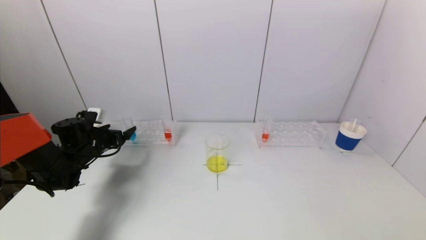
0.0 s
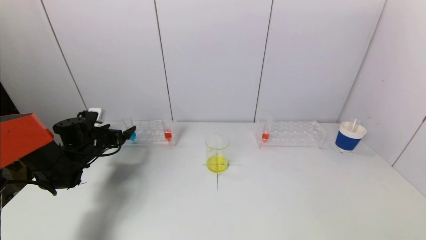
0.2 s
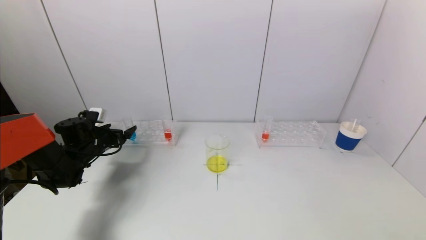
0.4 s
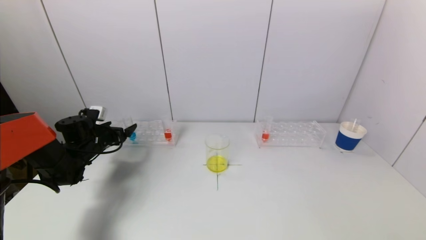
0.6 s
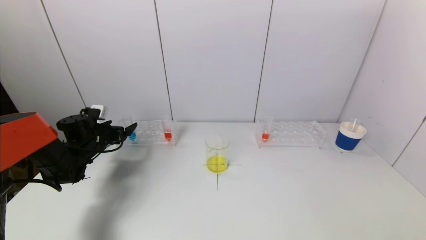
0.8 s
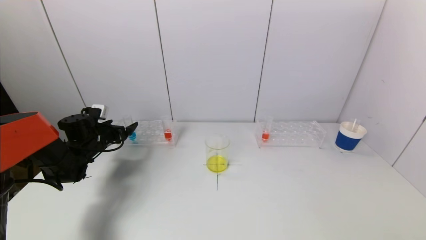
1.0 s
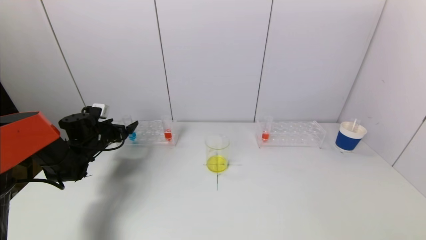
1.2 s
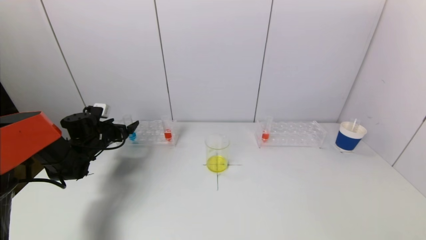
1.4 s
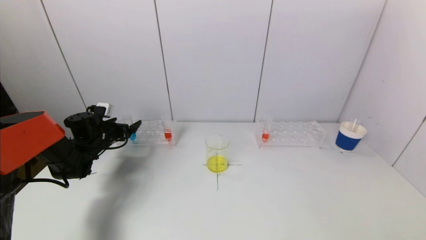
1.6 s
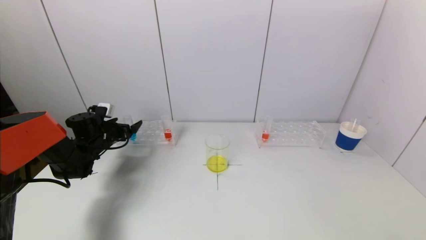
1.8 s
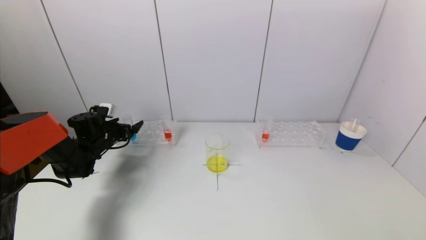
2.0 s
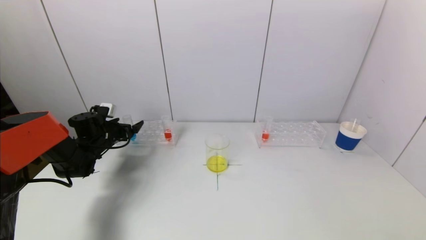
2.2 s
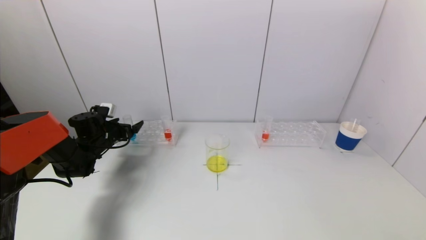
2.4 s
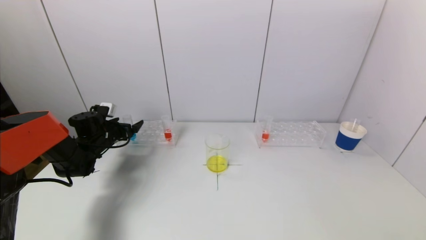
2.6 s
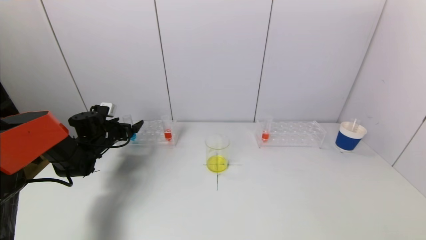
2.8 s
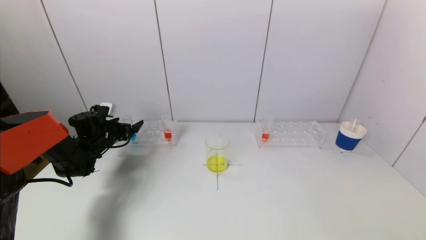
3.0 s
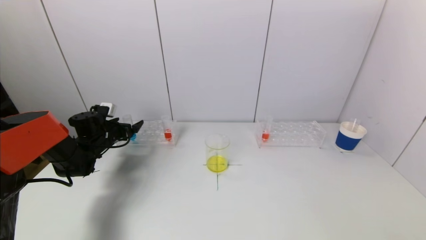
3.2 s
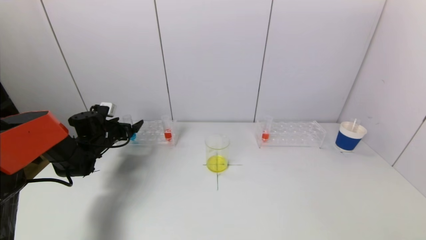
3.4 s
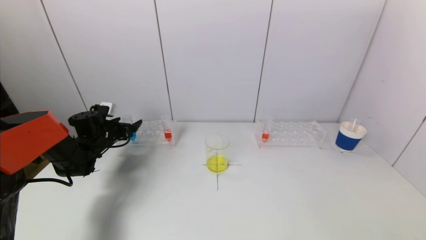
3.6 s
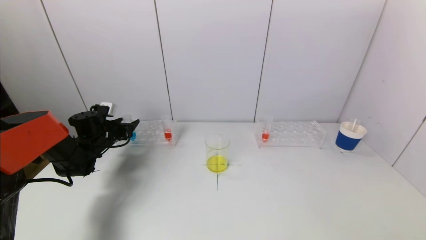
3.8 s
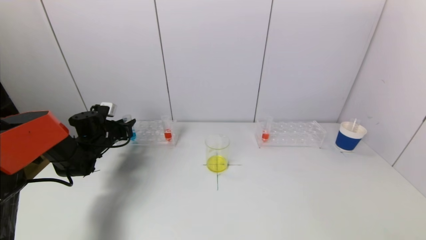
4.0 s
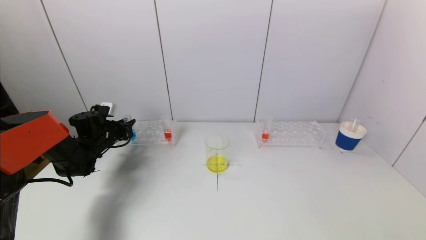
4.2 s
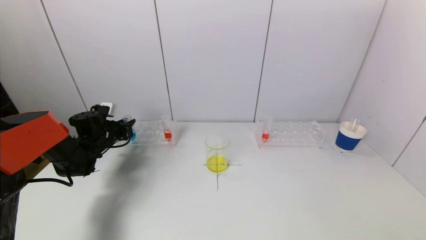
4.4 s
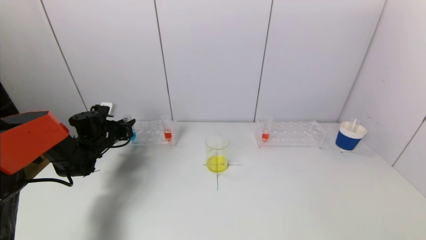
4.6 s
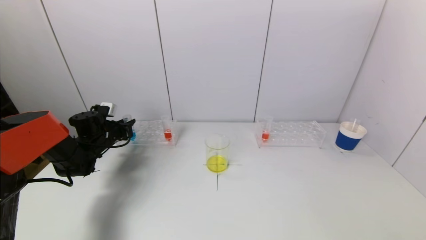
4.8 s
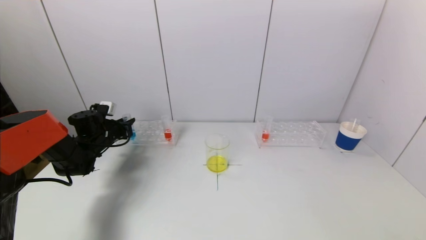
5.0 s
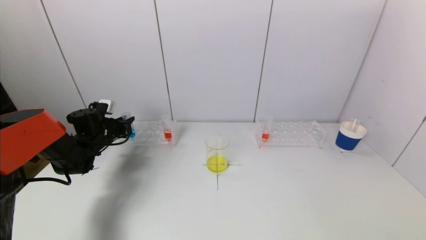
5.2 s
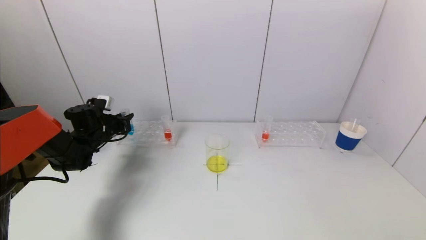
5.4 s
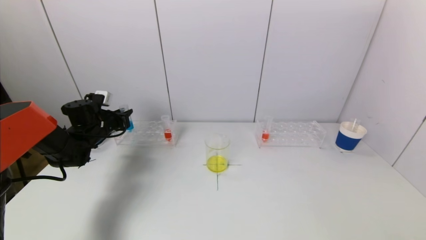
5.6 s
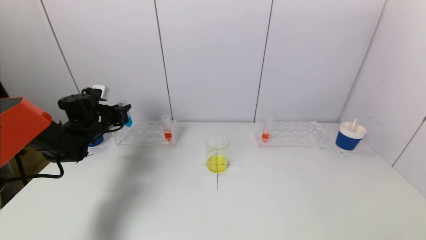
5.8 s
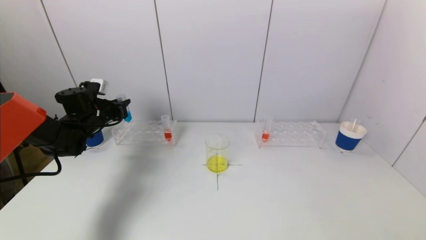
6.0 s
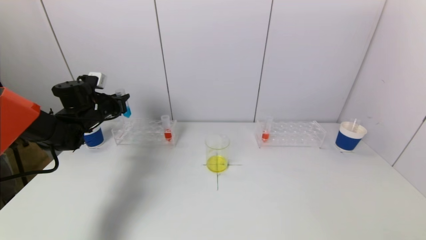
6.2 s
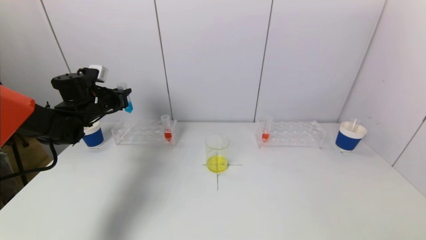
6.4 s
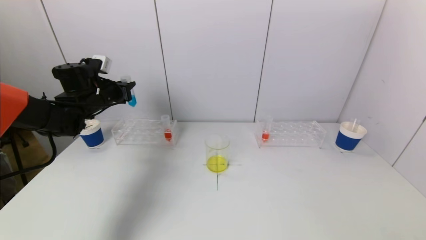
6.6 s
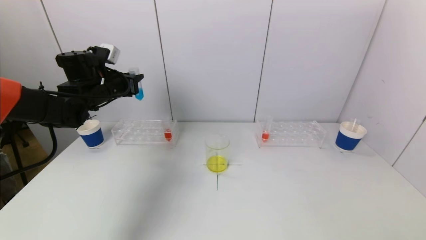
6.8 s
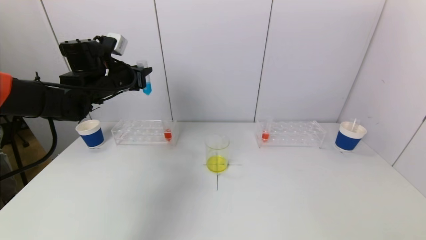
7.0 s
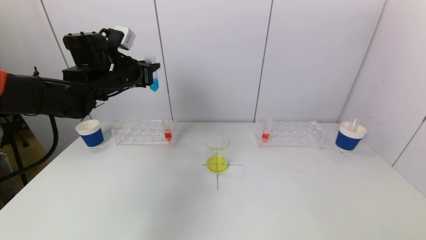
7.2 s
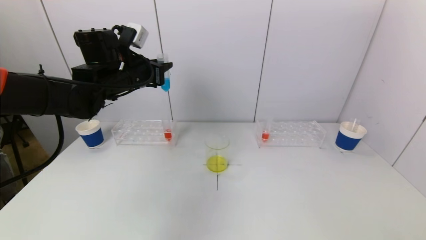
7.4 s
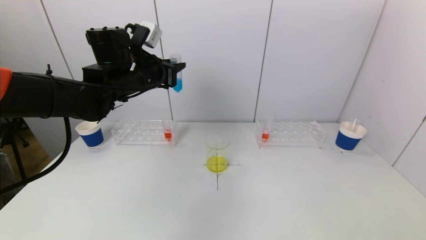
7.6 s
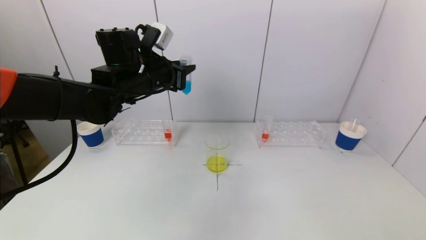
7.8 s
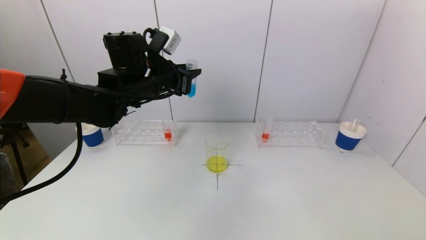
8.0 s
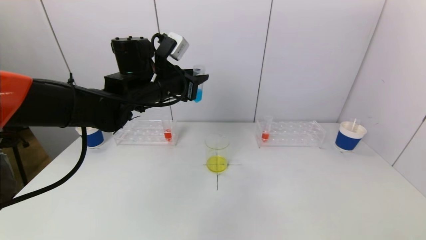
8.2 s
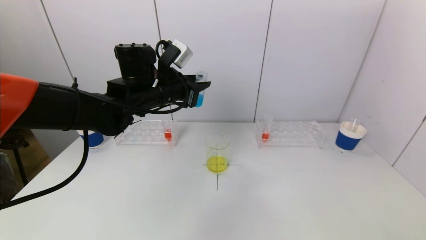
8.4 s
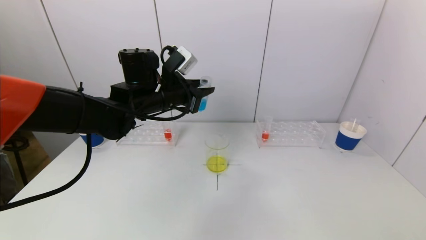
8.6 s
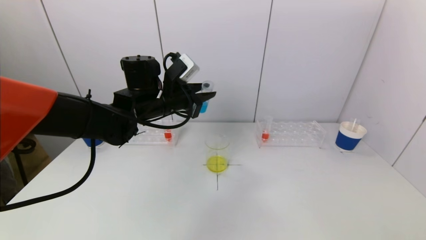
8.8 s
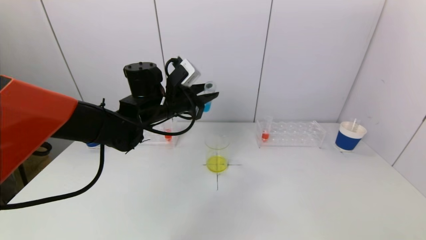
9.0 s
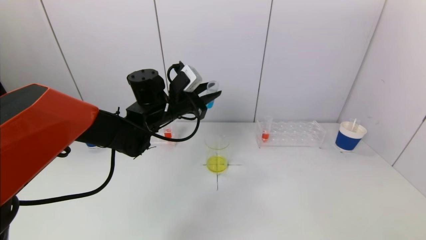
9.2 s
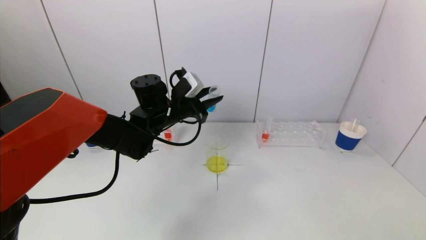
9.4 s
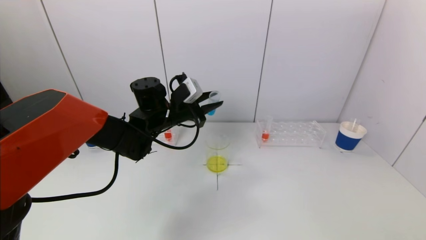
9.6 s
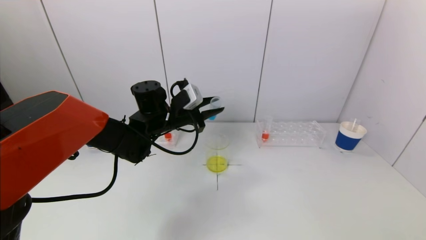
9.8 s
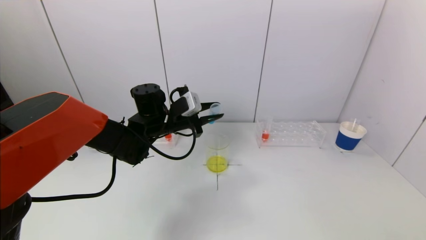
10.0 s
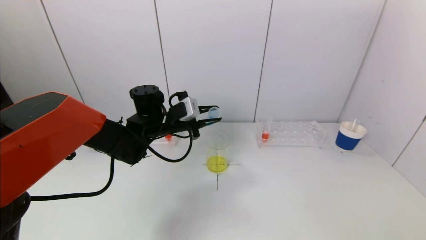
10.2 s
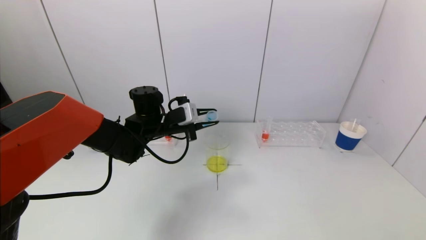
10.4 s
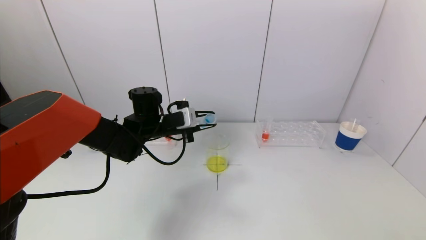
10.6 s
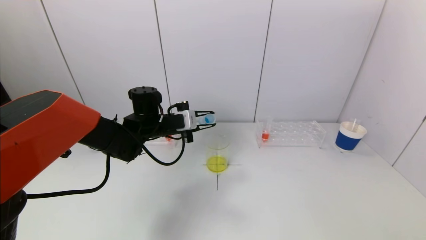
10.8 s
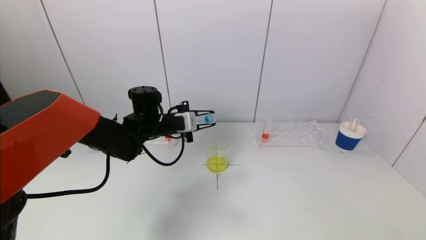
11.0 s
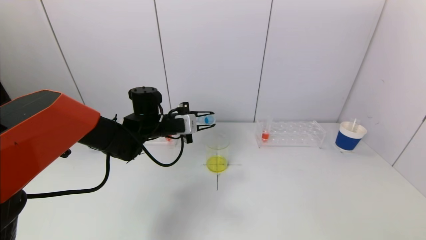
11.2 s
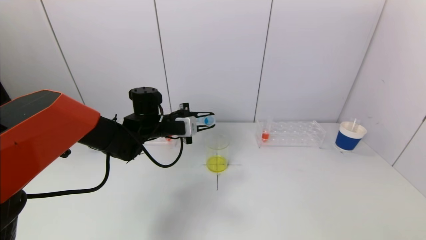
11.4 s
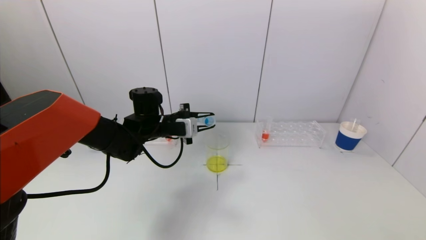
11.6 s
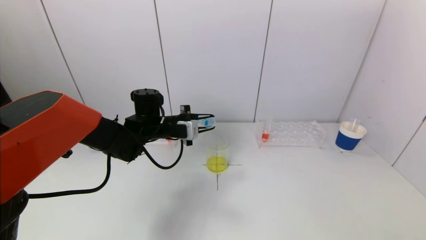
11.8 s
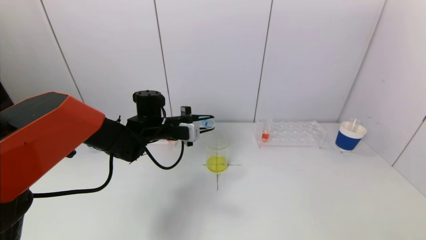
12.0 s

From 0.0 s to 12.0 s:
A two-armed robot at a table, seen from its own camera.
Task of the whole recording: pick up a test tube with pigment on left test tube rack and a test tube with pigment on right test tube rack by grippers and pour them into the beaker.
Step, from 0.0 s to 4.2 s: Grasp the blue reagent with the left gripper.
From 0.0 s to 1.6 s: The grippers stay close to where they were, moving slightly.
From 1.6 s to 3.0 s: Neither gripper changes place.
From 4.4 s to 6.0 s: The left gripper moves upward, about 10 cm.
From 6.0 s to 7.6 s: The left gripper shifts some 20 cm to the right and upward.
From 7.6 s to 9.0 s: The left gripper moves downward and to the right, some 10 cm.
From 9.0 s to 10.4 s: The left gripper heads downward, covering some 5 cm.
From 10.4 s to 12.0 s: There are only small adjustments of the grippers.

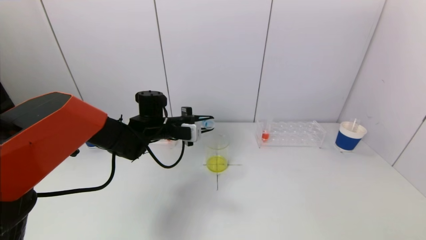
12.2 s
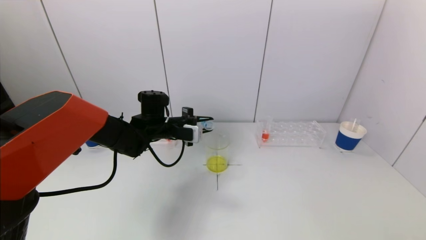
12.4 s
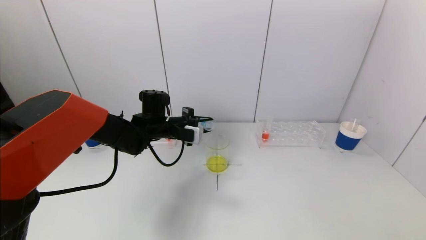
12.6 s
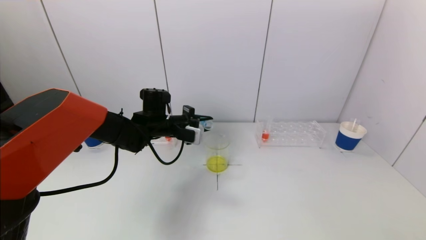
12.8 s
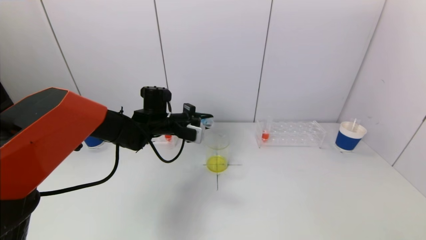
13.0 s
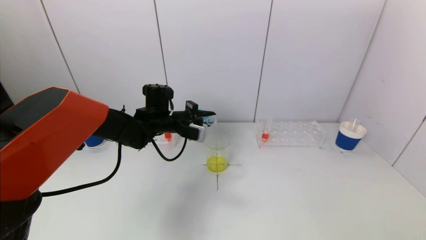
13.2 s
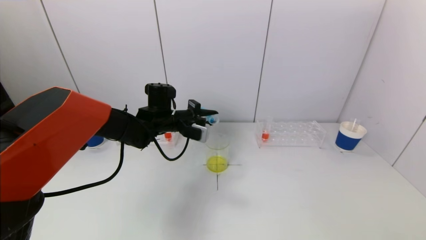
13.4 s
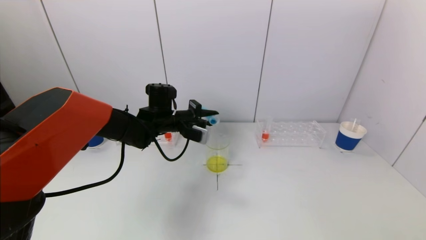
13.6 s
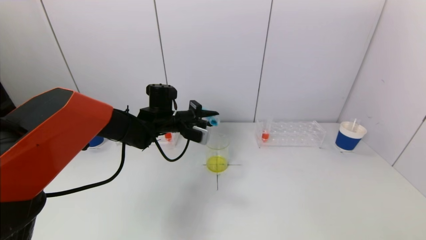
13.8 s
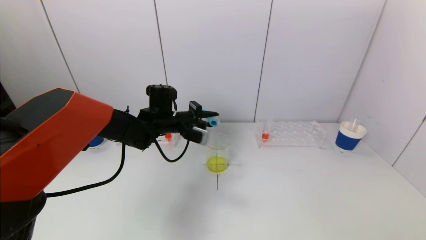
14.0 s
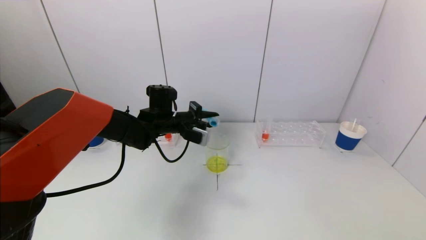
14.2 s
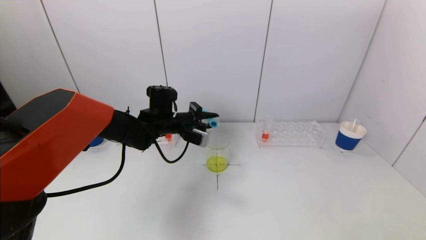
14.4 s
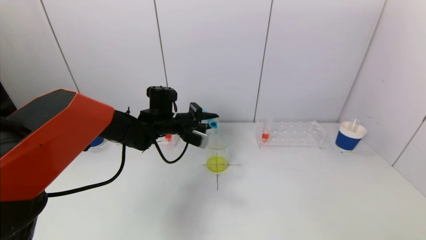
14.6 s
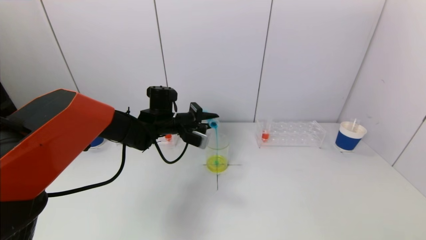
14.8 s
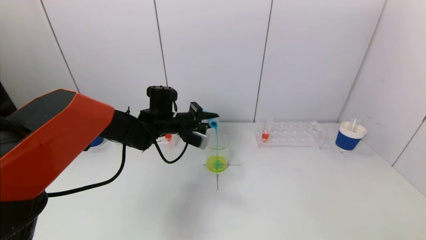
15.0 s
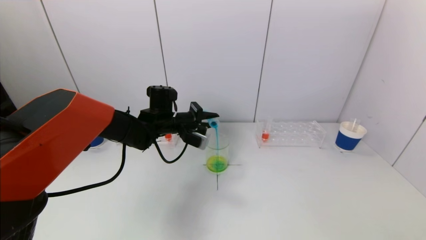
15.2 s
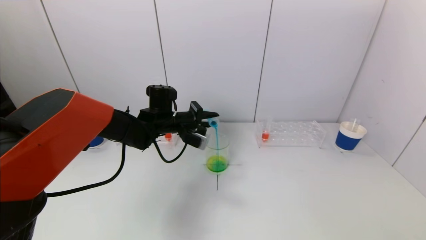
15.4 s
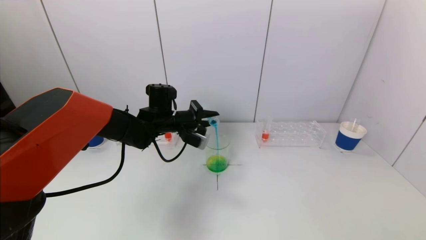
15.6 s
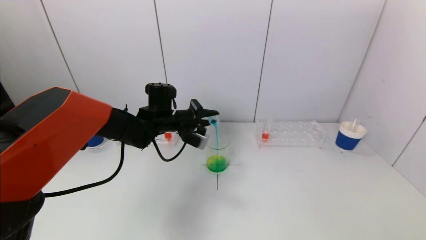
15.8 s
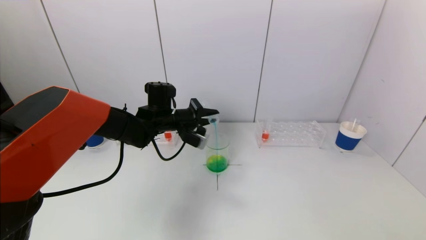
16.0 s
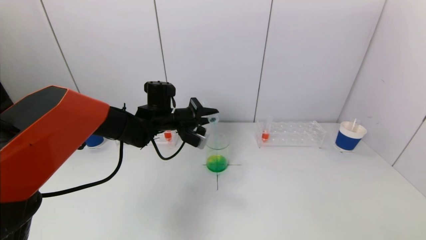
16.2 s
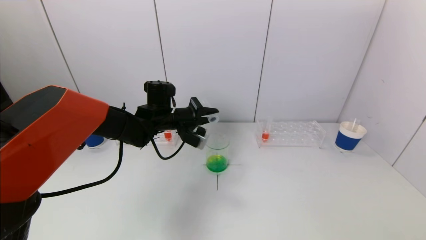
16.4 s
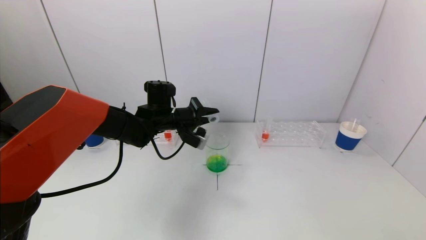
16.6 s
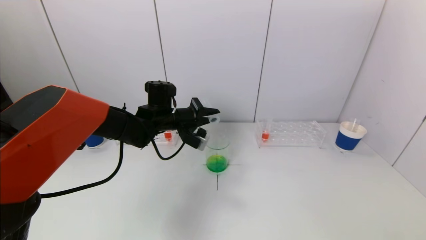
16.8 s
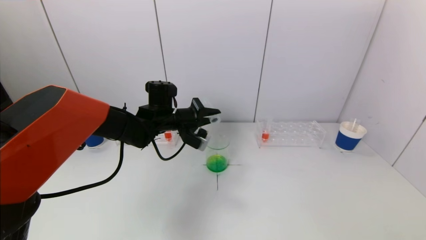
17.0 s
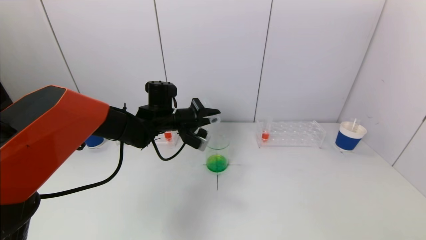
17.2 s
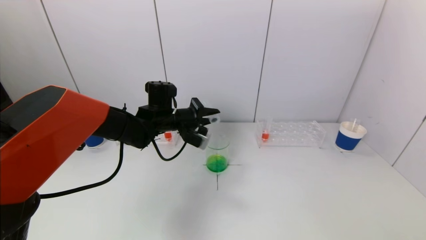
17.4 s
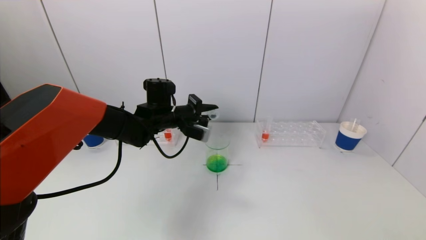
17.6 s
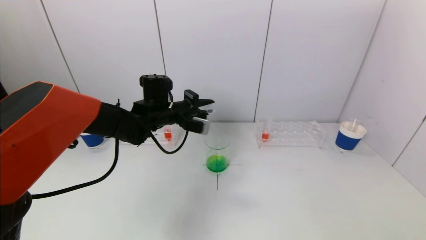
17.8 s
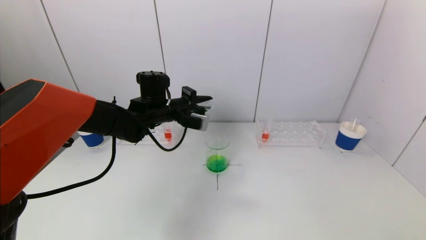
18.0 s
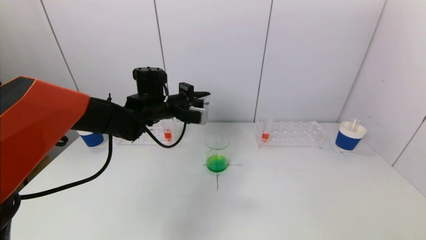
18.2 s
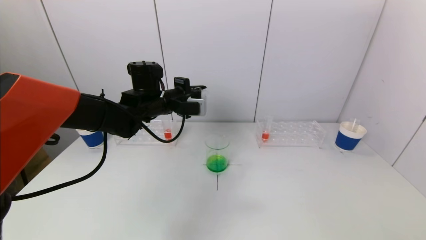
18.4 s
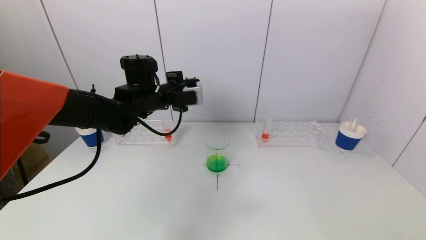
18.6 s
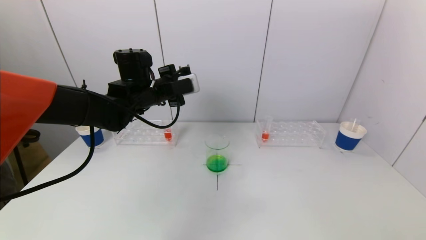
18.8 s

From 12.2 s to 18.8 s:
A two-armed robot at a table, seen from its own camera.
Task of the whole recording: pick up a test tube with pigment on left test tube rack and a test tube with pigment on right test tube rack by grippers and pour them into the beaker.
Step, from 12.2 s to 16.8 s: Pour the blue reagent into the graduated cylinder with the left gripper.
From 12.2 s to 13.8 s: The grippers stay close to where they were, moving slightly.
From 13.8 s to 17.2 s: There are only small adjustments of the grippers.
From 17.2 s to 18.8 s: The left gripper shifts about 10 cm upward.
